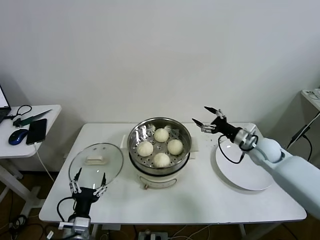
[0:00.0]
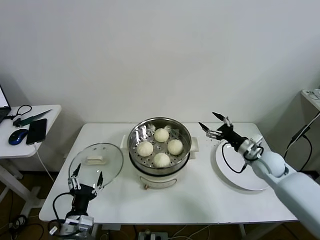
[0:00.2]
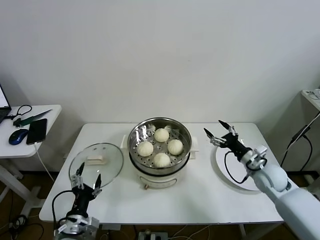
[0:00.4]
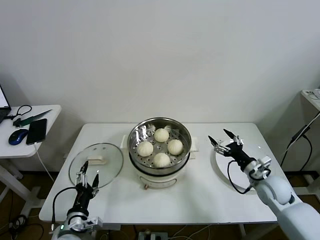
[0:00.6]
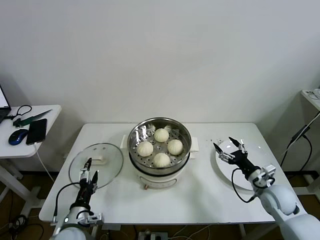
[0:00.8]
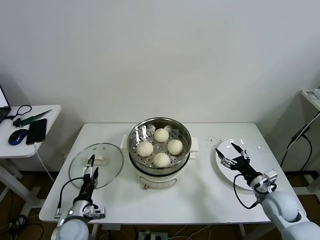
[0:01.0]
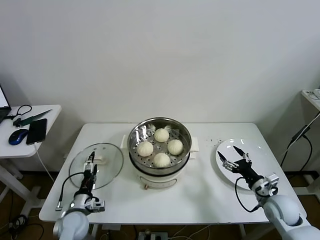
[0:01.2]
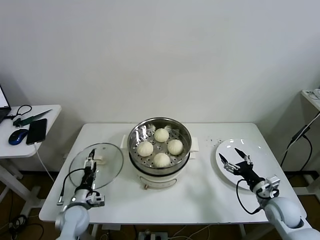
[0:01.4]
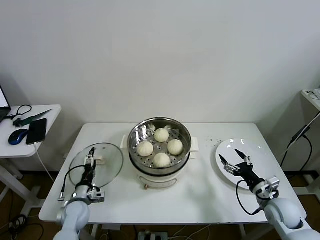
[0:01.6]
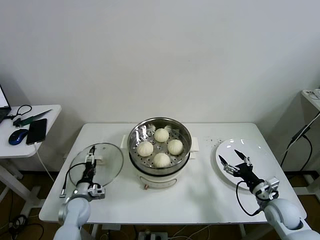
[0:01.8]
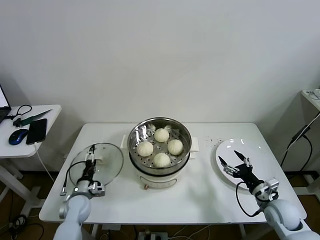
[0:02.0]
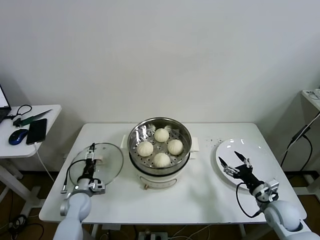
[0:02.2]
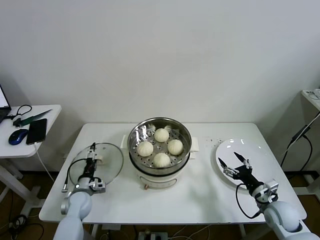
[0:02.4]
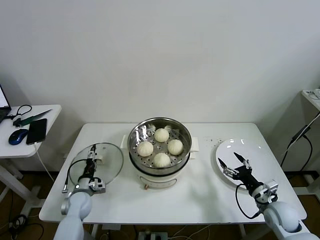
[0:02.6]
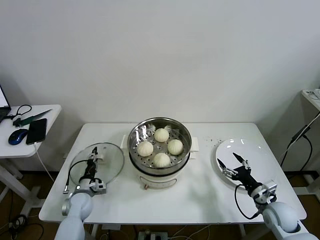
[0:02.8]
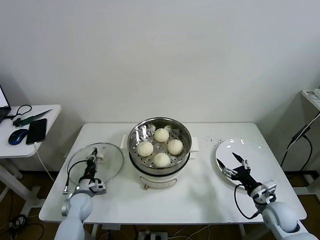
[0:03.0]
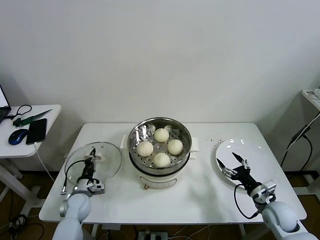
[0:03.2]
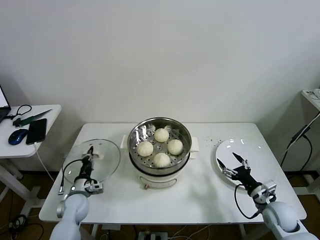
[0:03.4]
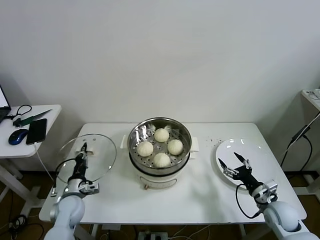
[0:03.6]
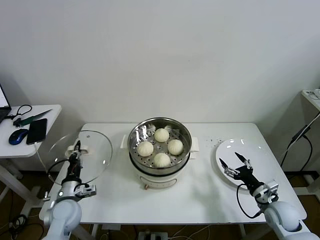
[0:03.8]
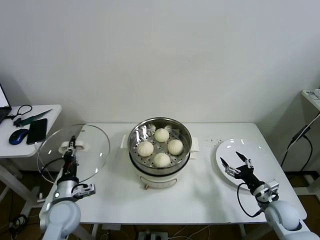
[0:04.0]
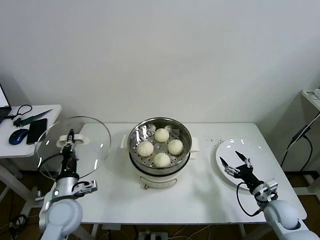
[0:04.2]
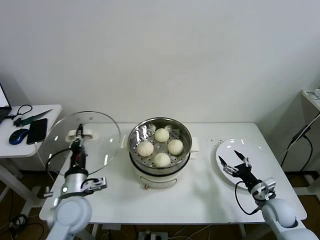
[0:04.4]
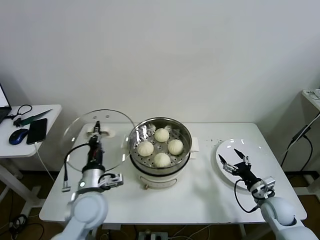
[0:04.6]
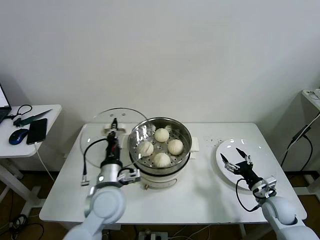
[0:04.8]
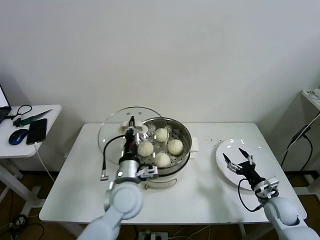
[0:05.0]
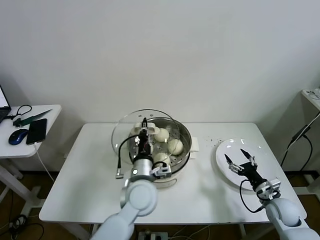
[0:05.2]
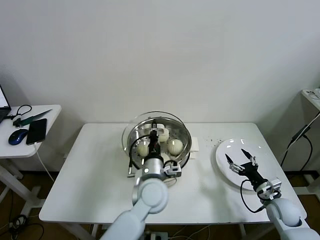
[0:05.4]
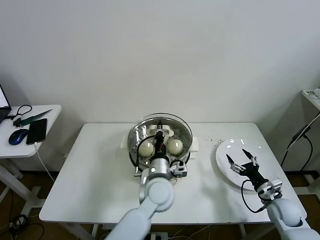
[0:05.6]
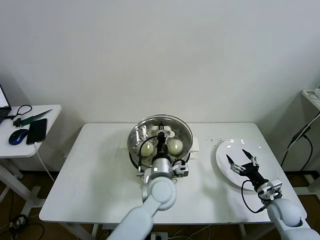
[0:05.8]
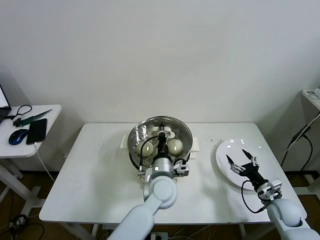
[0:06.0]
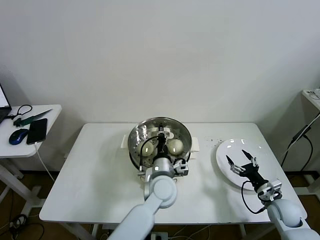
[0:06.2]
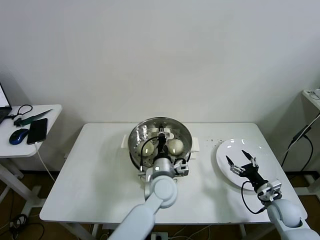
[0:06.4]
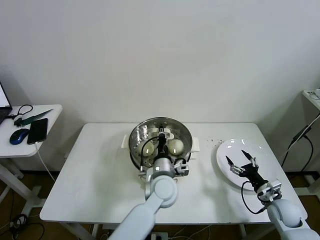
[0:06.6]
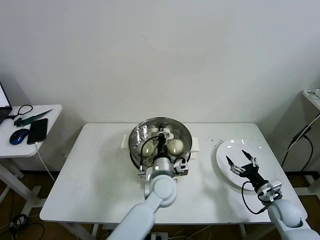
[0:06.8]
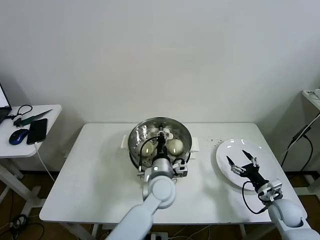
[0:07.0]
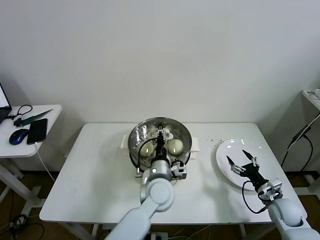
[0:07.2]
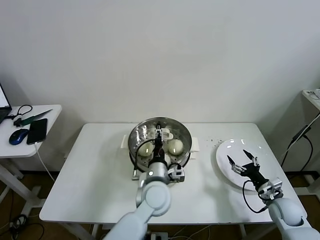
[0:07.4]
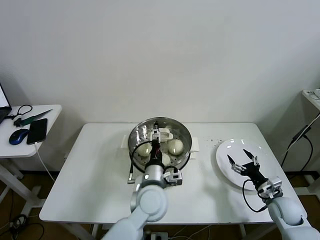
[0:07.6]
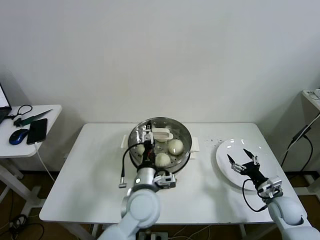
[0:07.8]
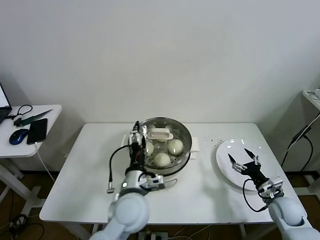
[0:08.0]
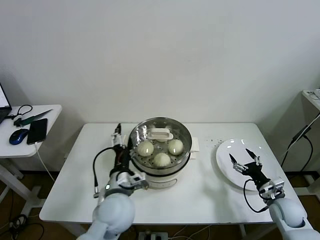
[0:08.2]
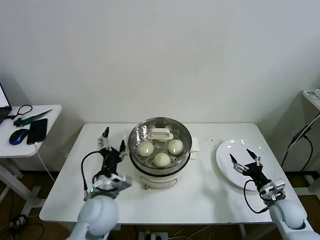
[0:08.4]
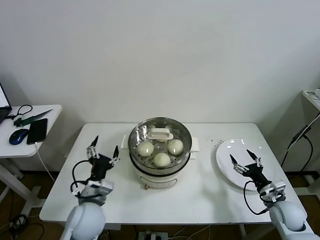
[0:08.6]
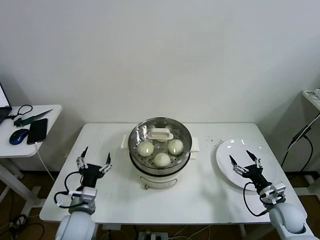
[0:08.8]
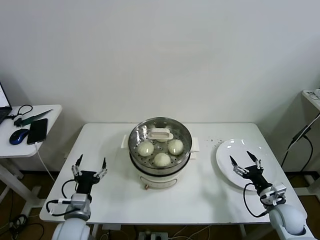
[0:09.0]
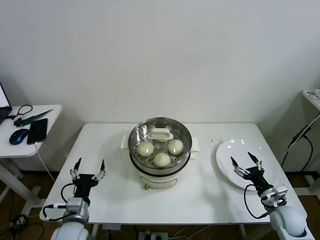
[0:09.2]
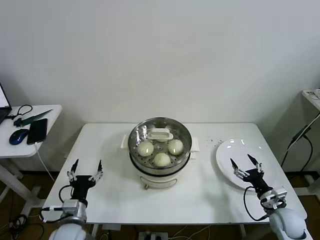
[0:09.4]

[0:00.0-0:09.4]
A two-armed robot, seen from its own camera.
Task of the whole recording: take steamed baozi put them in steamer then cover it.
Step, 0:00.0 to 0:03.0: Grasp the pot lid with left gripper.
Step, 0:03.2 to 0:07.0: Place the pot lid on the steamer with left gripper.
0:00.0 to 0:01.6: The right gripper shifts about 20 cm backward and downward. The left gripper shifts roughly 15 cm forward, downward and to the left.
0:01.6 to 0:03.2: The left gripper closes.
0:03.2 to 0:04.8: The left gripper goes roughly 25 cm upward and to the right.
0:04.8 to 0:06.2: The left gripper shifts roughly 15 cm to the right.
0:06.2 to 0:07.8: The left gripper travels backward by approximately 5 cm, and opens.
0:07.8 to 0:09.4: The left gripper goes roughly 25 cm to the left and downward.

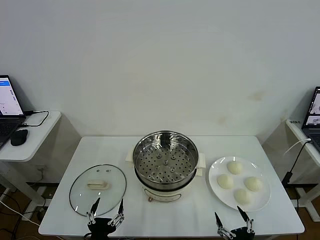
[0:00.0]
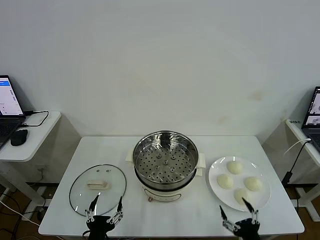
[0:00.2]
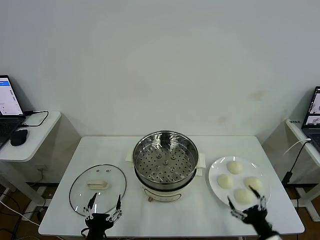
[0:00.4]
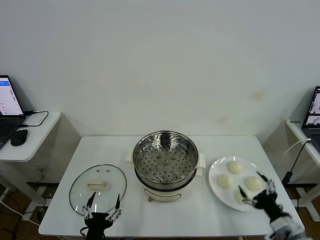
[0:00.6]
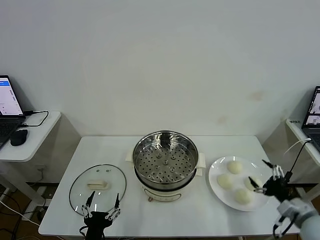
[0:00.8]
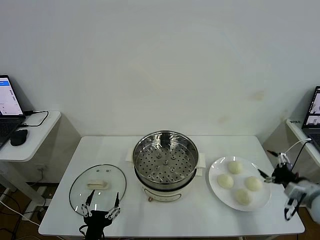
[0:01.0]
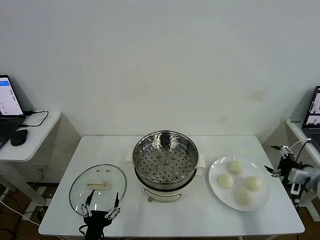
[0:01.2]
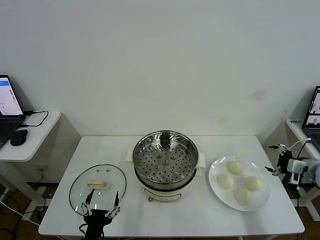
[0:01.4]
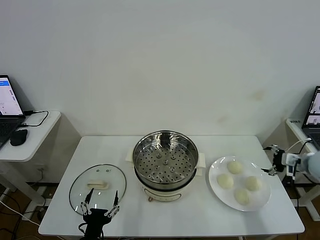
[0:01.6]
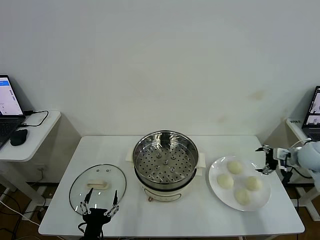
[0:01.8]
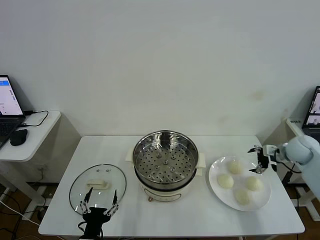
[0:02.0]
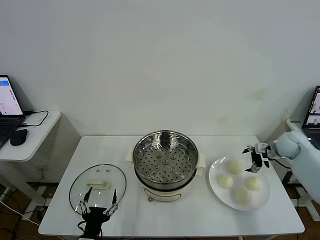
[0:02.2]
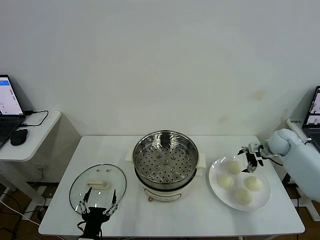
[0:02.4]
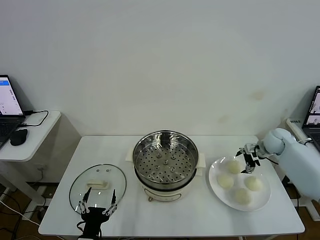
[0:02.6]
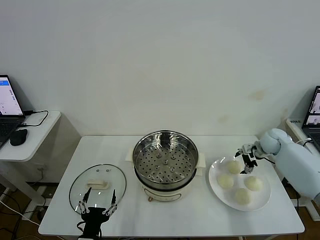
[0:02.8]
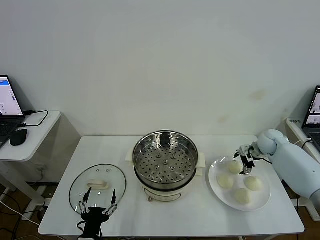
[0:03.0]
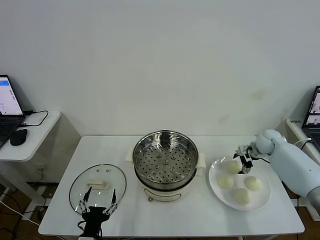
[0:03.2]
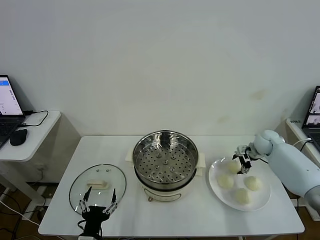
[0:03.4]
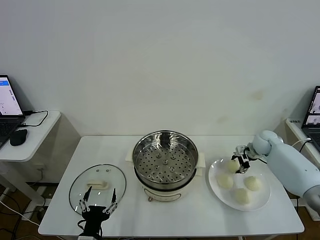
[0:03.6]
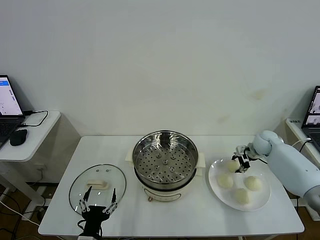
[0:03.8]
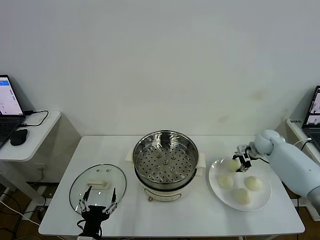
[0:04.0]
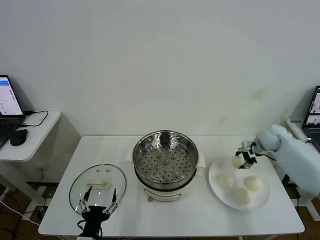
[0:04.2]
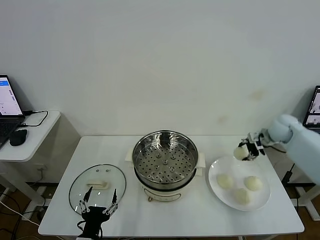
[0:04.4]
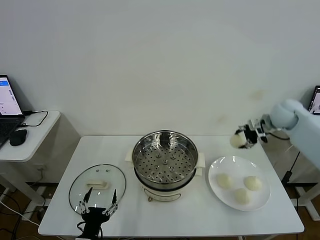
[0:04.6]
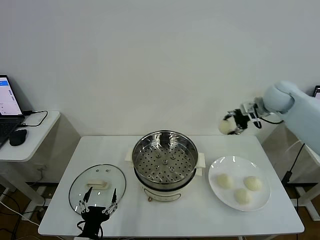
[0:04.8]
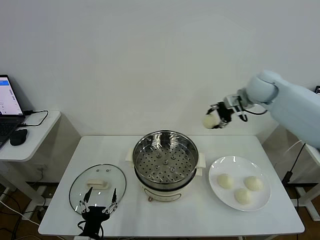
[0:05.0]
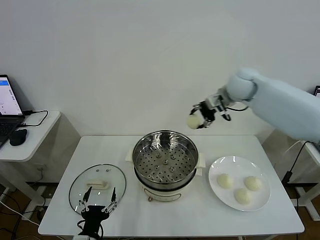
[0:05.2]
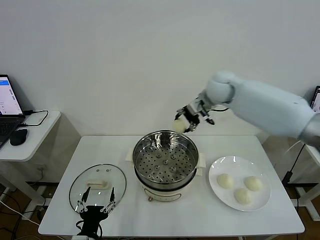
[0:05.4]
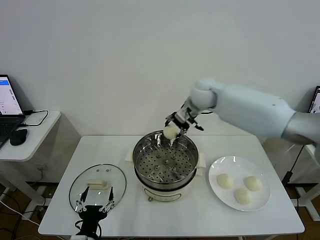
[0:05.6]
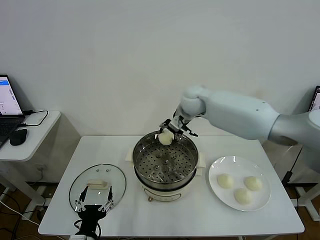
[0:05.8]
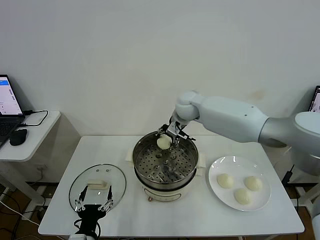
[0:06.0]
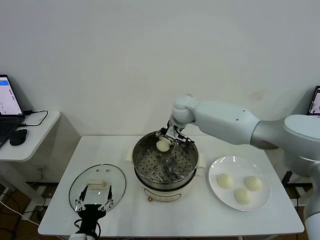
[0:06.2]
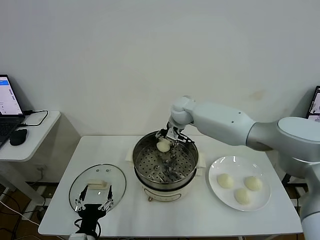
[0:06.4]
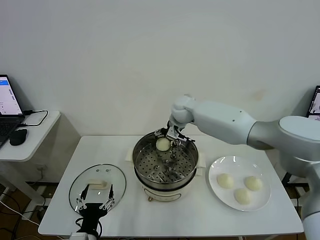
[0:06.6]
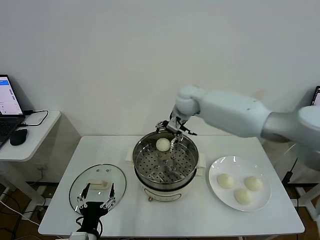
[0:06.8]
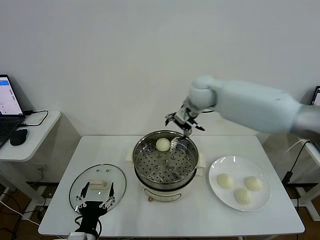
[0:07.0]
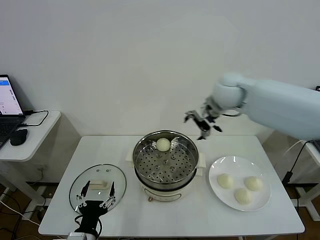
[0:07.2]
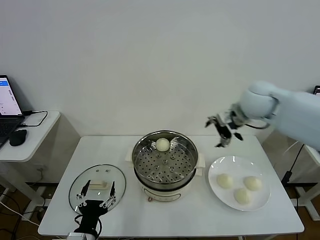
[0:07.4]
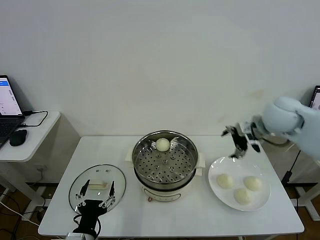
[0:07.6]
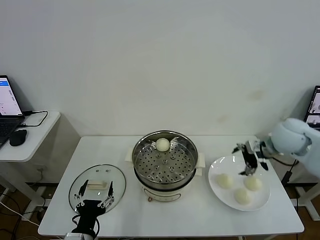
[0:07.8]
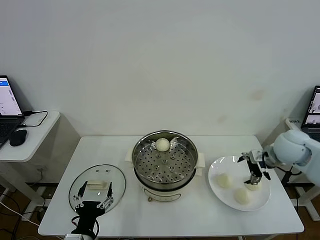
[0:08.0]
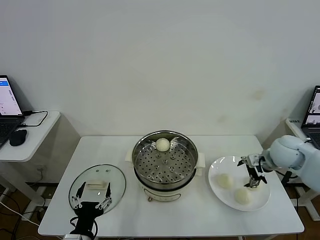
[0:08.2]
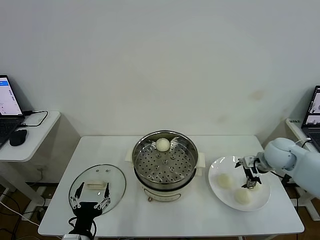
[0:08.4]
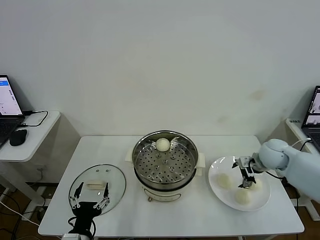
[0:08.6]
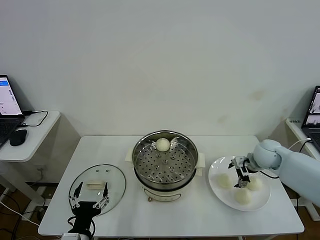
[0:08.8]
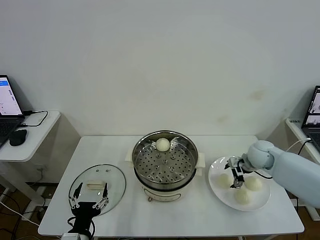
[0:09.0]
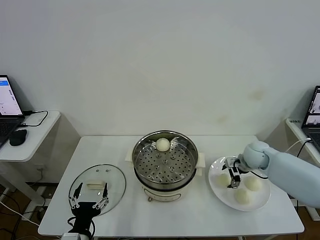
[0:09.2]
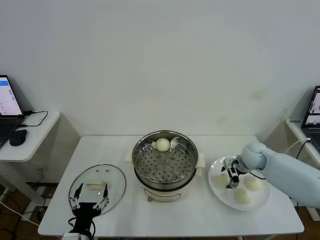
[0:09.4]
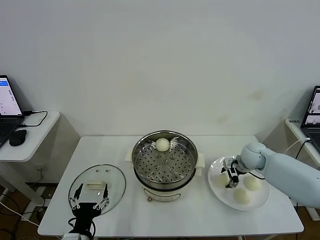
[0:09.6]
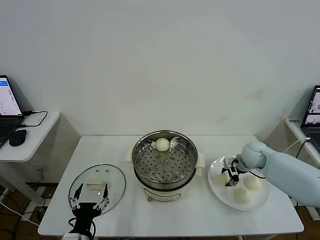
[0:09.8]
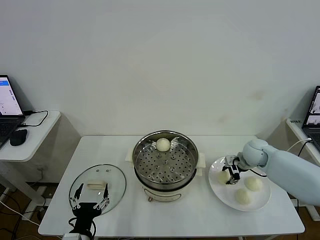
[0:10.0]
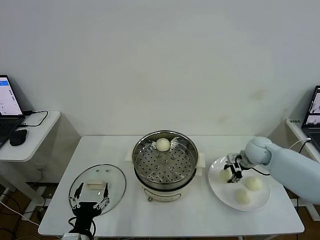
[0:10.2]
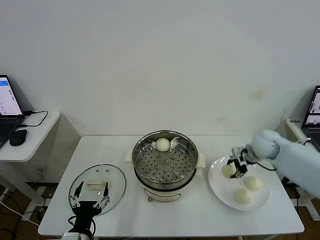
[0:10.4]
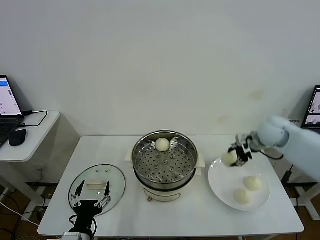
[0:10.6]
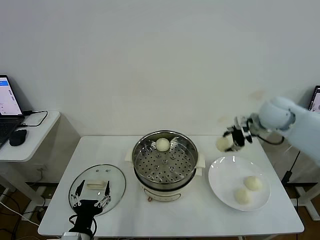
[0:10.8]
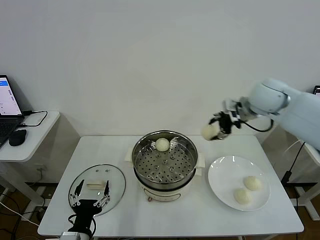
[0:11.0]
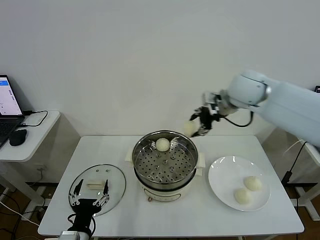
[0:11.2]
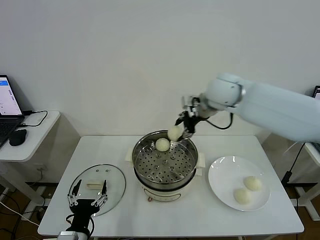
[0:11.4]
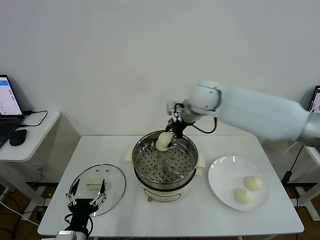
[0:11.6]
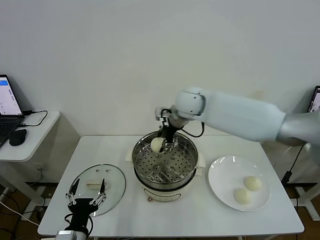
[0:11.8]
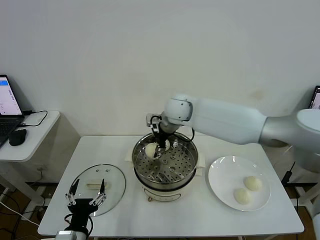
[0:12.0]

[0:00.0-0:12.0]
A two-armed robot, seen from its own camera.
Task of the whole recording: take steamed baozi put them in steamer then cover it.
Step, 0:00.0 to 0:03.6: Grasp the baozi in the plate with right gripper.
Step, 0:04.0 to 0:06.6: Place the baozi on the steamer with right gripper.
Step, 0:06.8 to 0:10.0: Grasp the baozi in the plate with right gripper.
0:01.6 to 0:03.0: The right gripper is displaced forward, to the left and downward by approximately 15 cm.
0:03.0 to 0:04.4: The right gripper is displaced upward by roughly 10 cm, and closes up.
0:04.4 to 0:06.0: The right gripper moves to the left, some 35 cm.
0:06.0 to 0:07.6: The right gripper is displaced to the right and backward by about 30 cm, and opens.
0:07.6 to 0:09.0: The right gripper shifts approximately 20 cm downward.
0:09.0 to 0:10.4: The right gripper shifts approximately 5 cm upward, and closes.
0:10.4 to 0:12.0: The right gripper shifts approximately 30 cm to the left.
